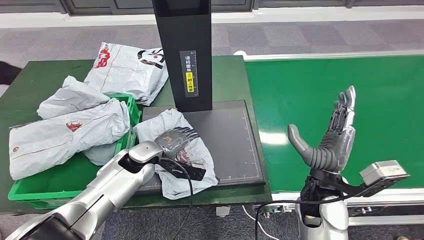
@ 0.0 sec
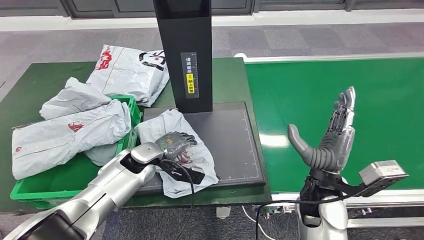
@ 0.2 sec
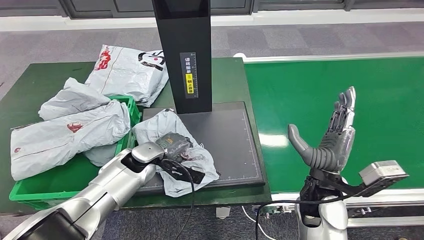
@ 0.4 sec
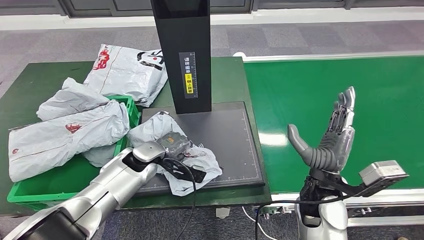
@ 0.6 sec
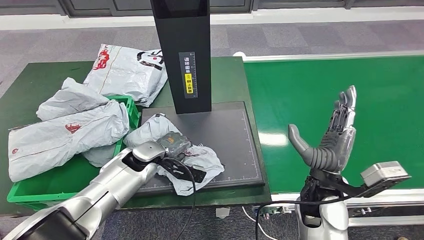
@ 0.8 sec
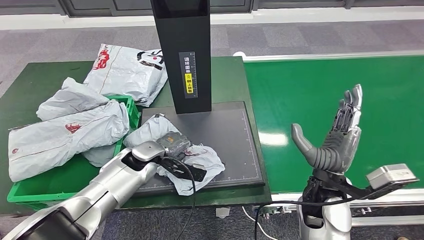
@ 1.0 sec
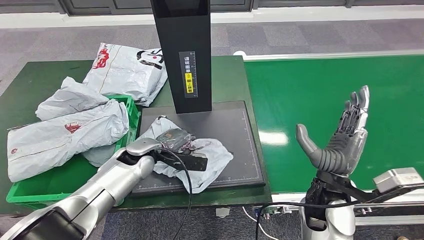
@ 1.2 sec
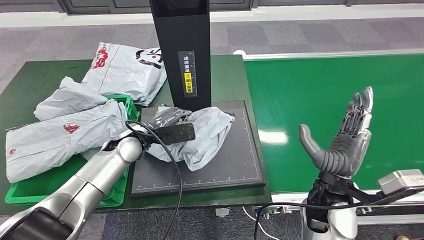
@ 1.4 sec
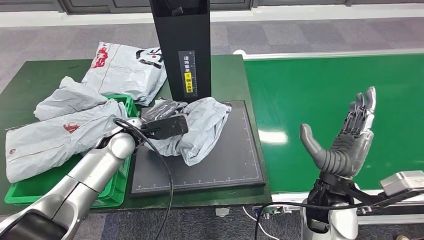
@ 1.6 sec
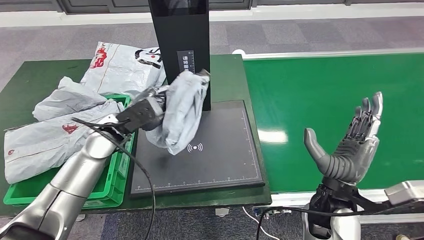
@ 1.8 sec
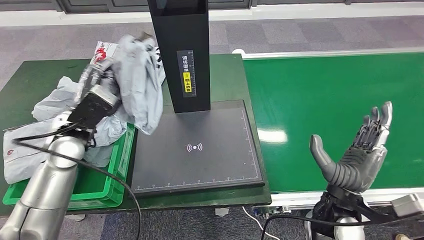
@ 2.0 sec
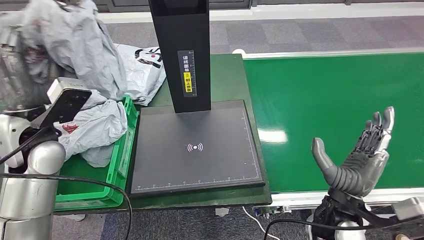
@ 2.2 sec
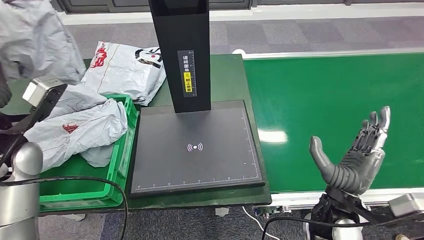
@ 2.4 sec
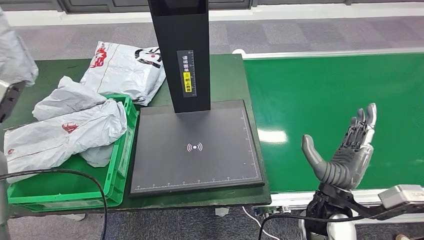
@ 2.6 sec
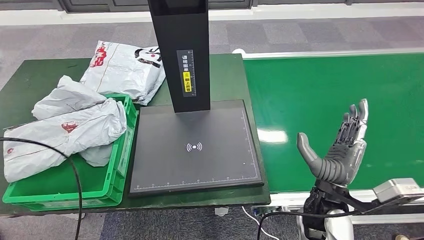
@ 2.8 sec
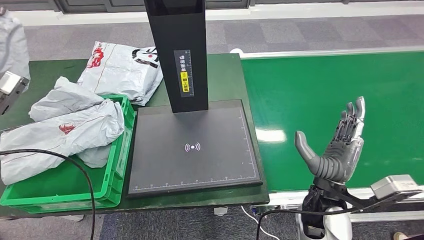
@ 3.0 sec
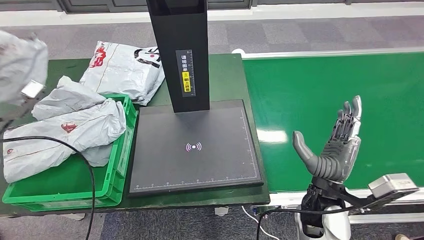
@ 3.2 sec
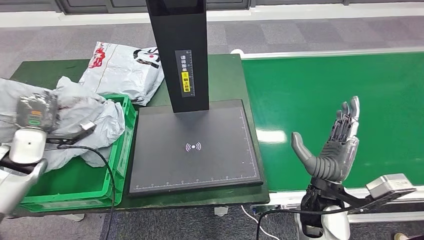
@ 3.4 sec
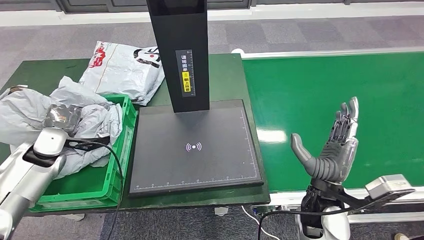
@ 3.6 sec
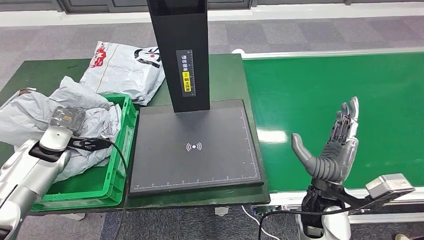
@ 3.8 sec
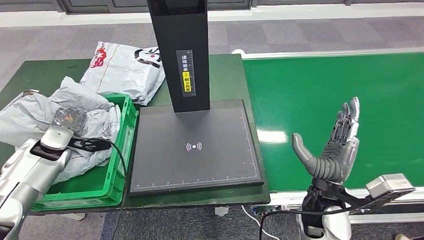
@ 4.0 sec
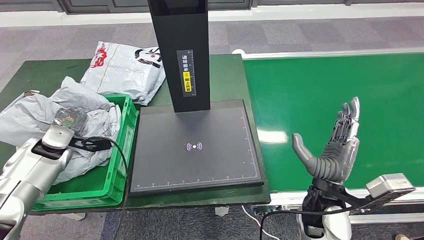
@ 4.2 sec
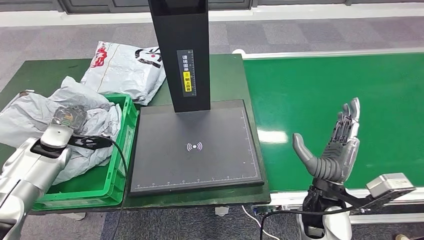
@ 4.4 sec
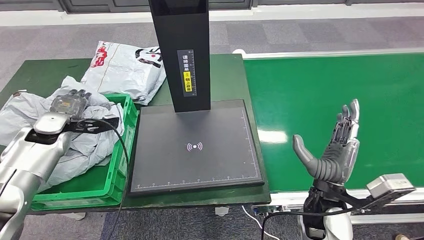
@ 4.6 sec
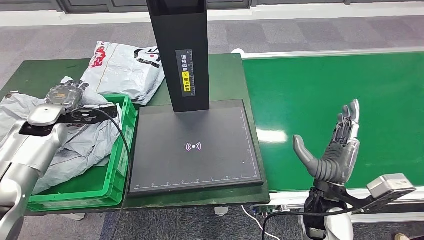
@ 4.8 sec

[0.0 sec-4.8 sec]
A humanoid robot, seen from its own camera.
Step, 0.0 sec to 2.0 sec: Pick up the parcel from the inbound machine.
Step, 2.2 sec to 4.8 sec: Place the parcel into the delivery box.
3.2 sec to 4.8 sec: The left hand heads forward, to the right and downward, covering roughly 15 cm.
